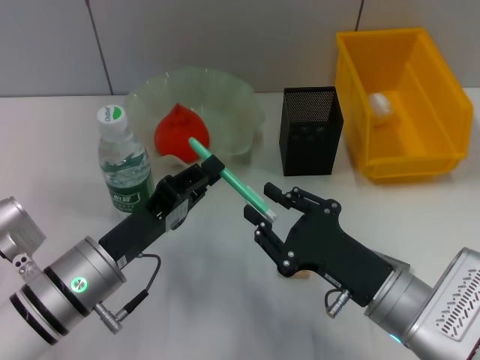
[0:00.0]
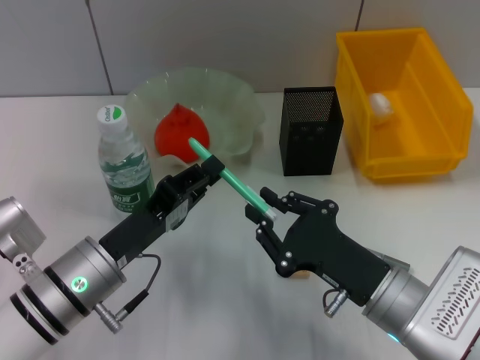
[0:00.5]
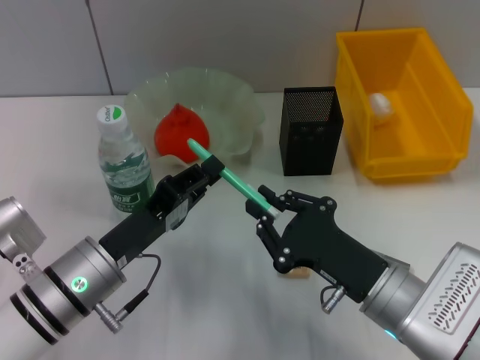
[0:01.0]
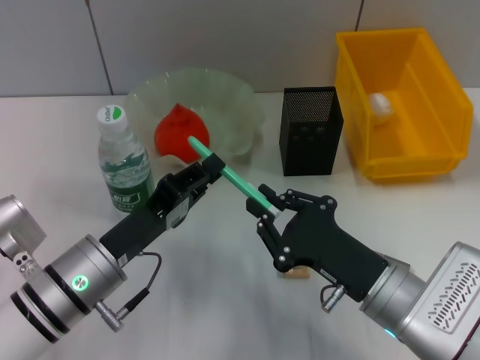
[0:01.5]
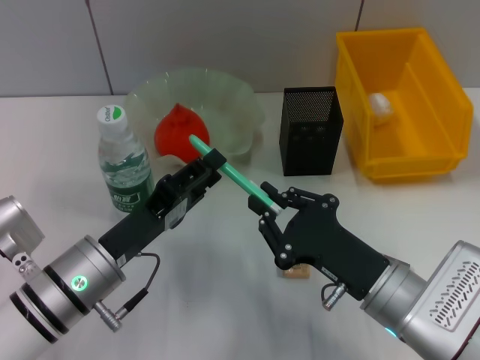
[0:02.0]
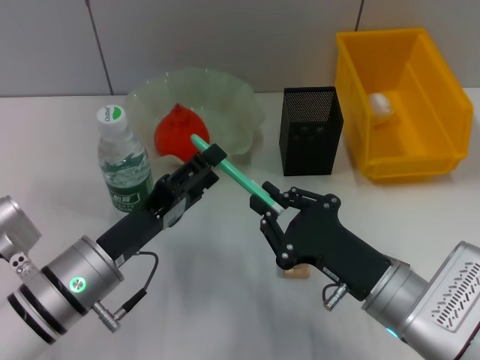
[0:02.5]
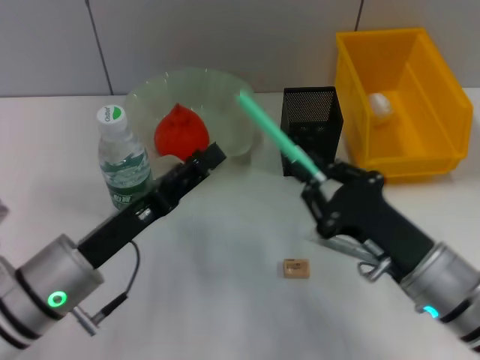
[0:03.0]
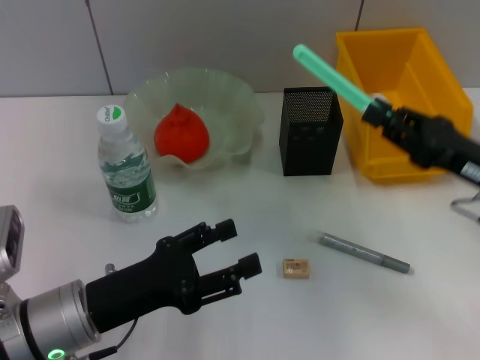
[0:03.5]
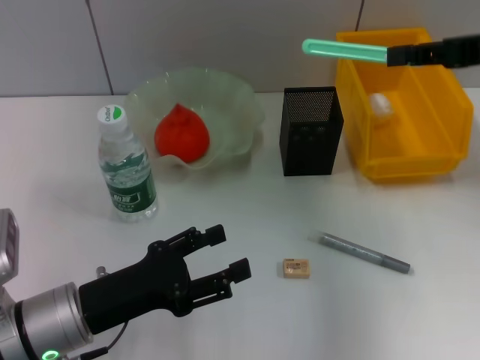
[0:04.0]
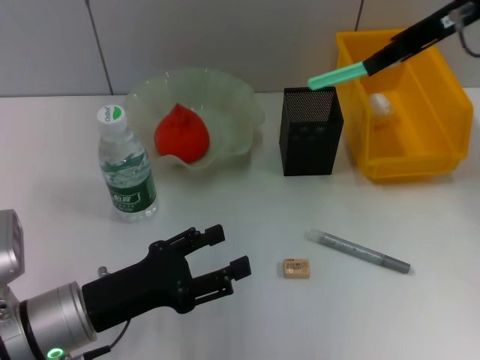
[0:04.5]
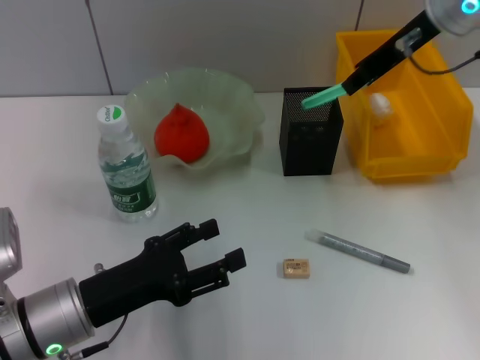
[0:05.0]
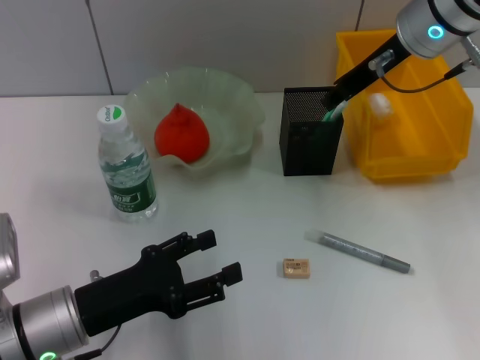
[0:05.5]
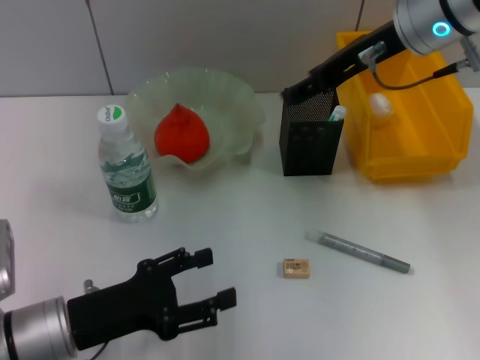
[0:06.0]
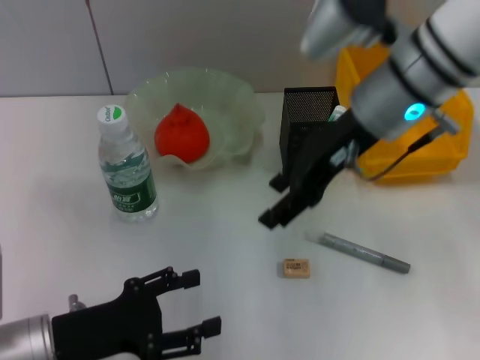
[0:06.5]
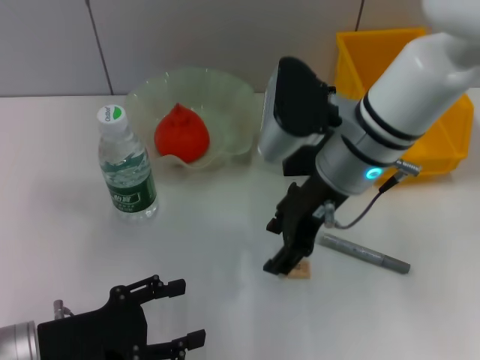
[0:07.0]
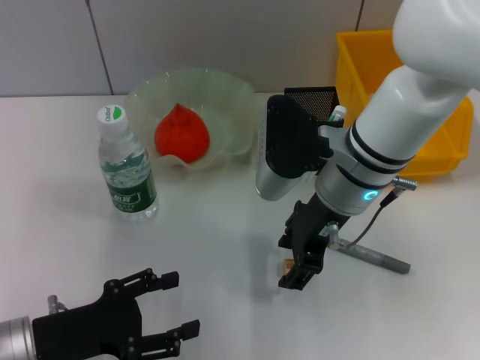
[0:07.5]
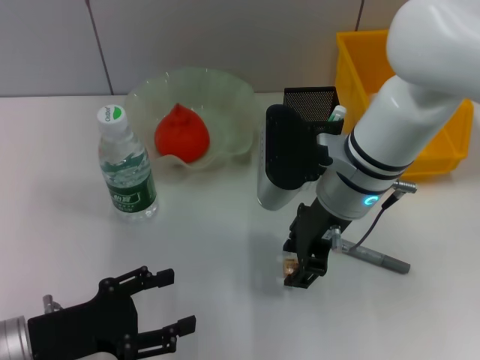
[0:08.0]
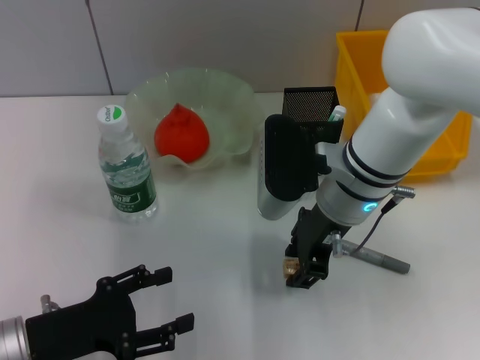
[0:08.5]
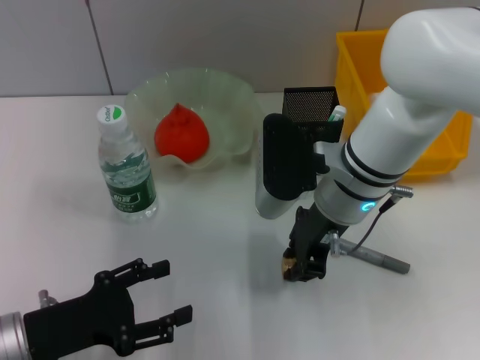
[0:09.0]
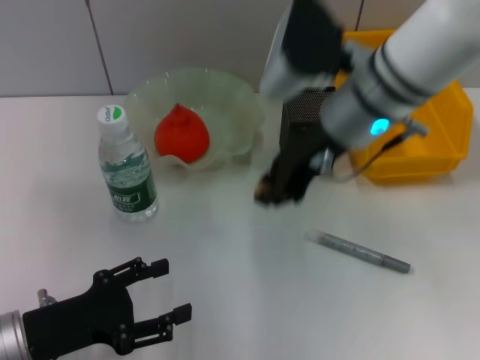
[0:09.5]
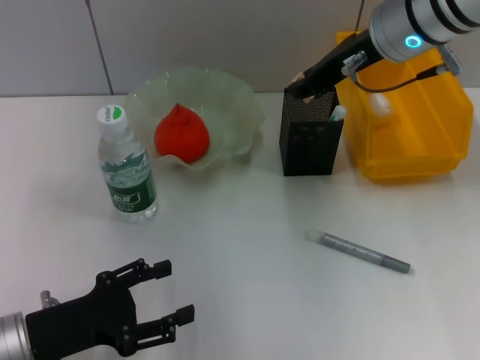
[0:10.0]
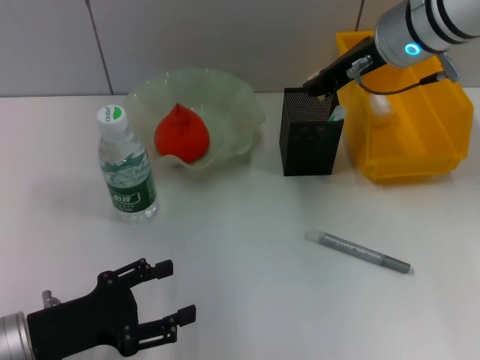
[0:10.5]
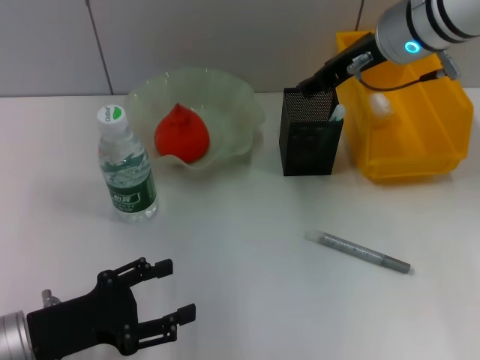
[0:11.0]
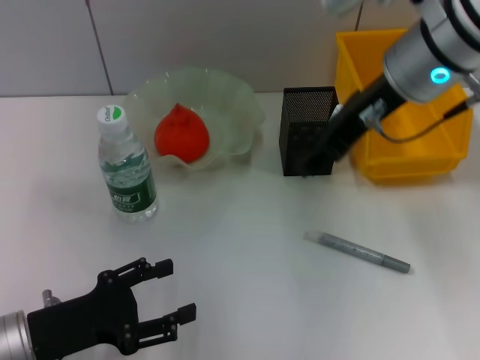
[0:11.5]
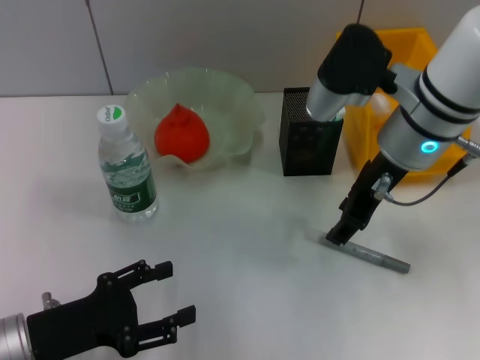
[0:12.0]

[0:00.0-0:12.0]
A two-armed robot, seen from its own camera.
Step, 0:00.0 to 0:02.5: Pass the blue utility knife from the left hand to the right hand.
Step, 0:03.0 to 0:06.0: Place the blue utility knife into the pen holder with the right hand.
Step, 0:06.5 to 0:08.5: Grab the eraser with the right hand.
Step, 0:09.0 to 0:10.5: Put the eraser into the pen holder with the right hand.
0:00.0 to 0:02.0: Neither gripper changes place.
0:02.0 to 0:04.0: The left gripper opens. Meanwhile the right gripper moves upward, forward and to the right, about 30 cm.
0:04.0 to 0:06.0: The right gripper moves to the left, some 15 cm, and opens up.
0:06.0 to 0:08.0: The right gripper travels downward, to the left and backward by approximately 15 cm.
0:08.0 to 0:10.0: The right gripper heads upward and forward, covering some 15 cm, and closes.
0:10.0 to 0:12.0: The right gripper heads downward, covering roughly 5 cm, and opens up.

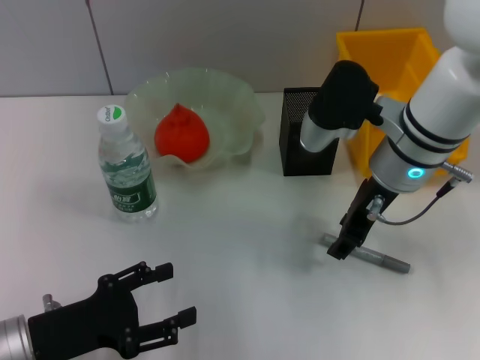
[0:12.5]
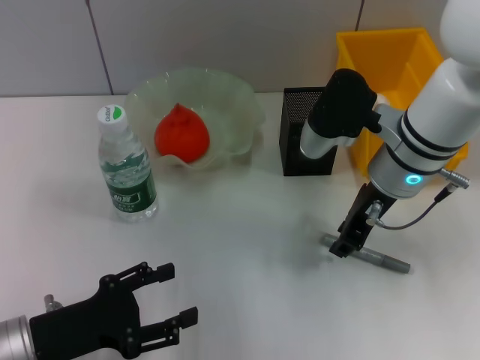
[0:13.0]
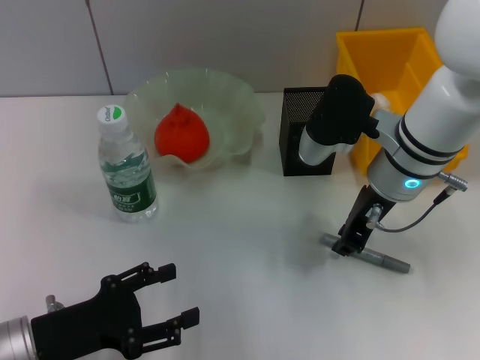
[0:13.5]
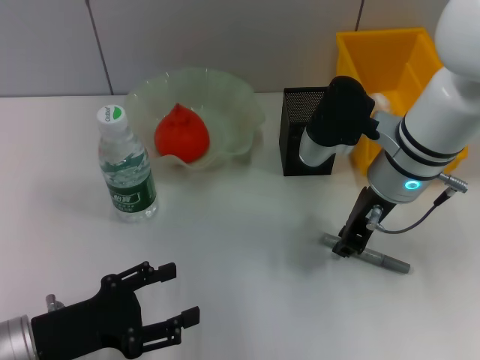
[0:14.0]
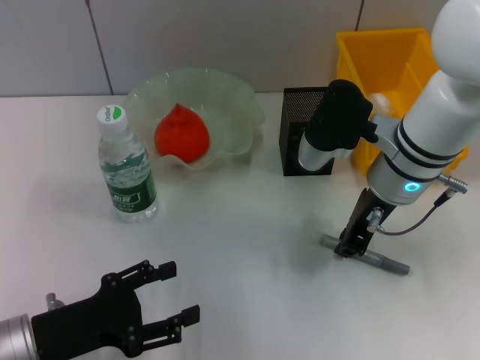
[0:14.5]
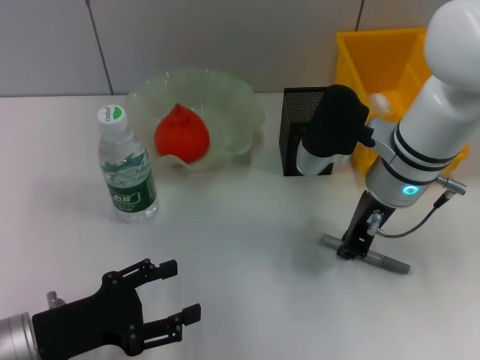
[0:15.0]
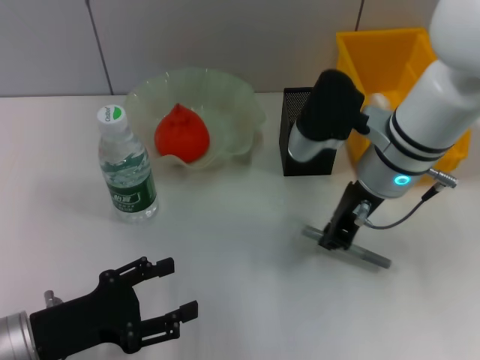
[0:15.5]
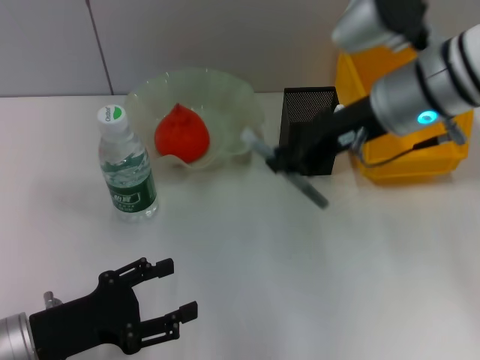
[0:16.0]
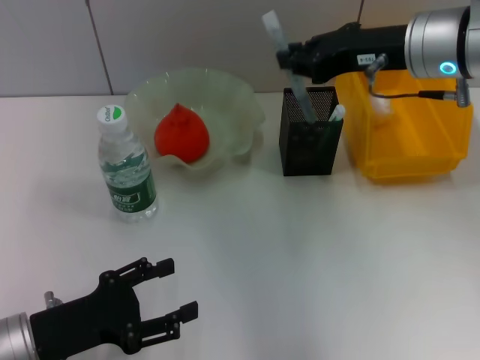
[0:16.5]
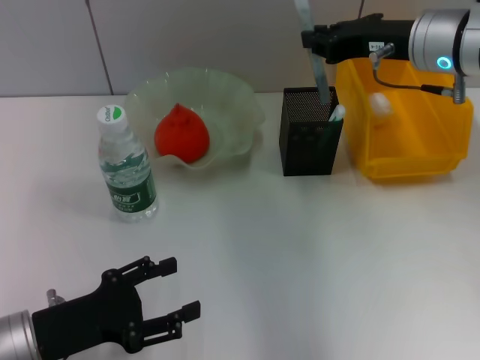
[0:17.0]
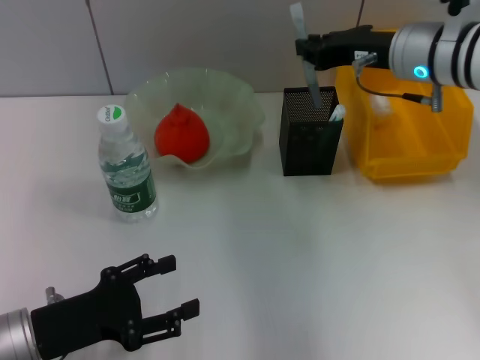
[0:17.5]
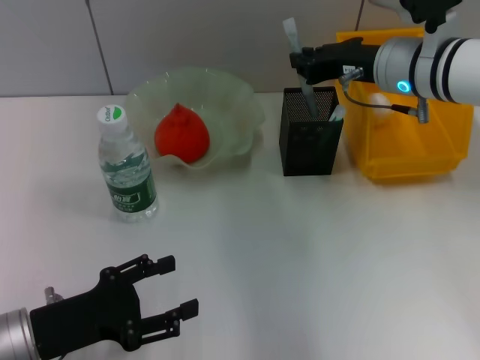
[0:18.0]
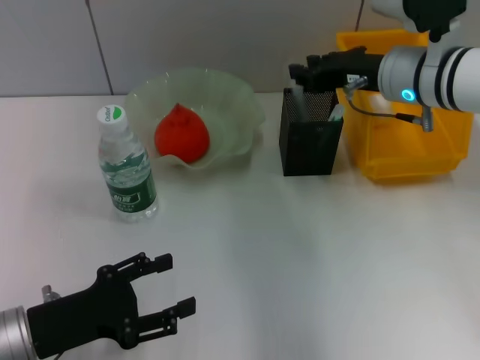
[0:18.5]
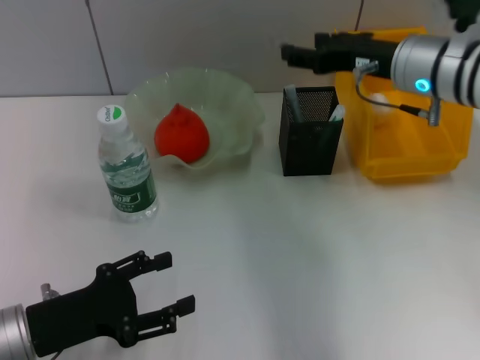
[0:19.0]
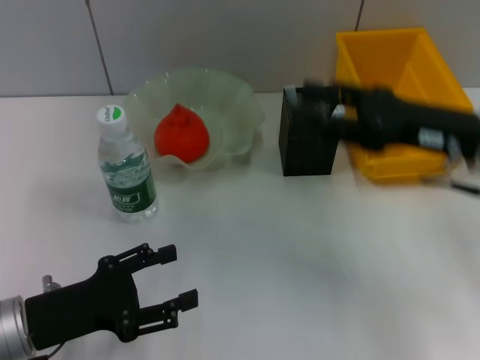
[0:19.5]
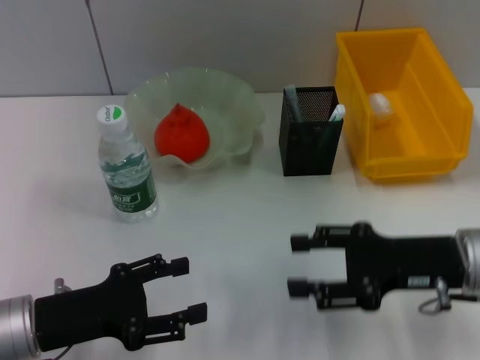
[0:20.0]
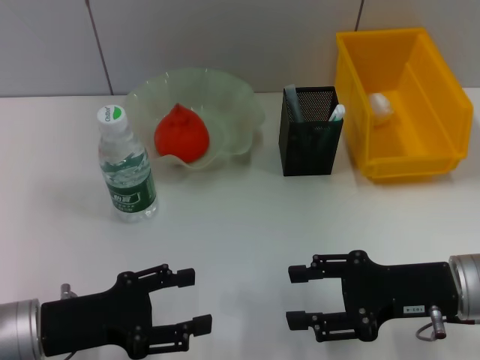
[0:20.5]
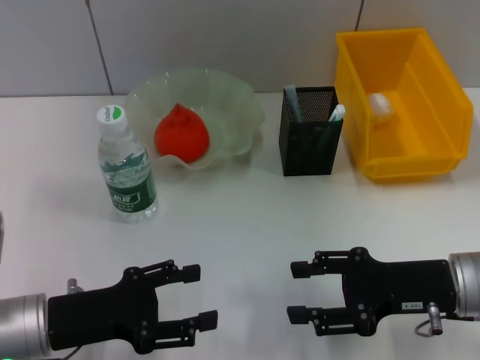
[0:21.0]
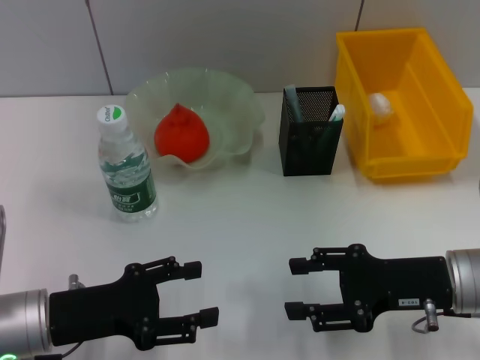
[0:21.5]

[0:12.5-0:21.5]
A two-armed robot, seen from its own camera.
Step, 0:12.5 to 0:15.0: Grab the gray glue with the right hand.
Step, 0:15.5 to 0:18.5: Place the gray glue into the pen holder with the right hand.
0:12.5 to 0:14.5: The right gripper closes its fingers.
0:14.5 to 0:17.0: The right gripper moves upward and to the right, about 10 cm.
0:17.0 to 0:19.5: The right gripper heads backward, covering some 10 cm, and opens up.
0:19.5 to 0:21.5: The right gripper travels downward and backward by about 10 cm.

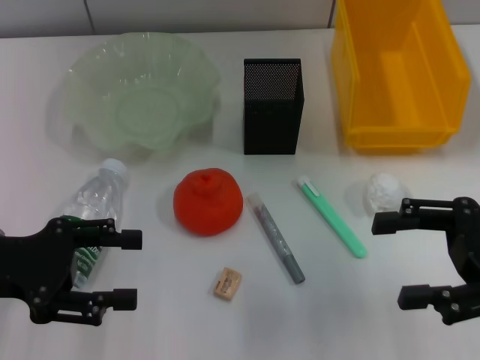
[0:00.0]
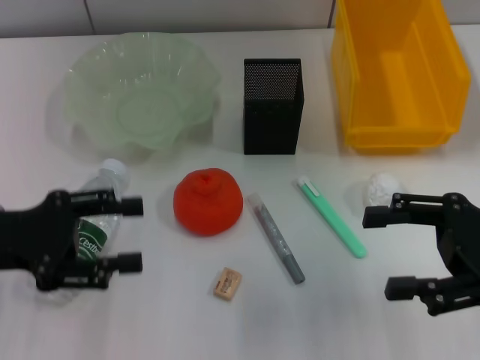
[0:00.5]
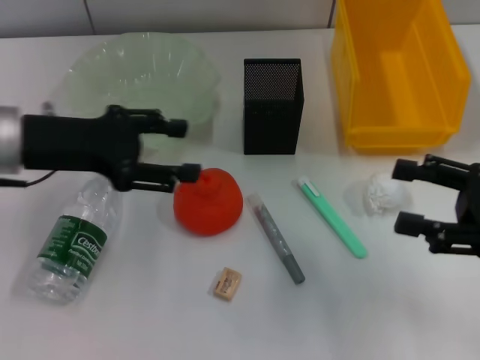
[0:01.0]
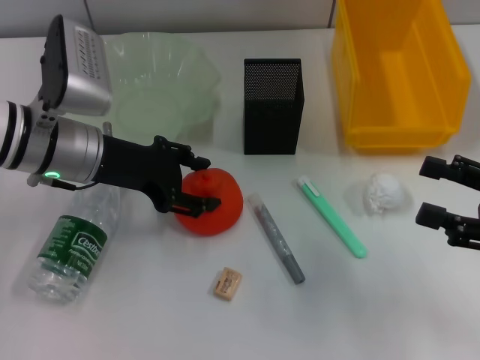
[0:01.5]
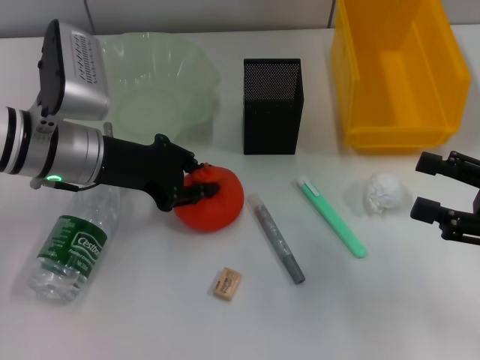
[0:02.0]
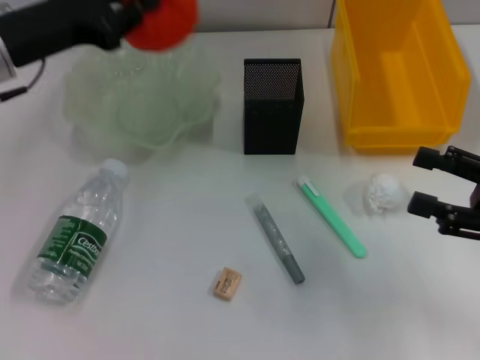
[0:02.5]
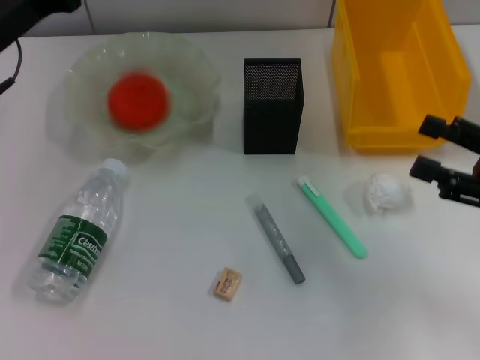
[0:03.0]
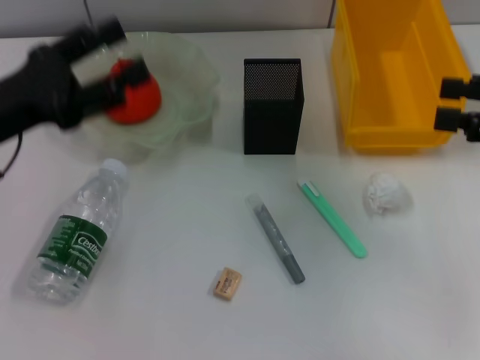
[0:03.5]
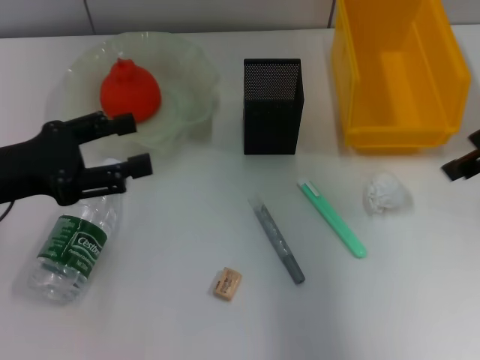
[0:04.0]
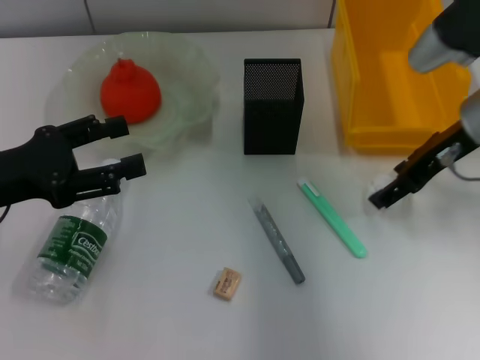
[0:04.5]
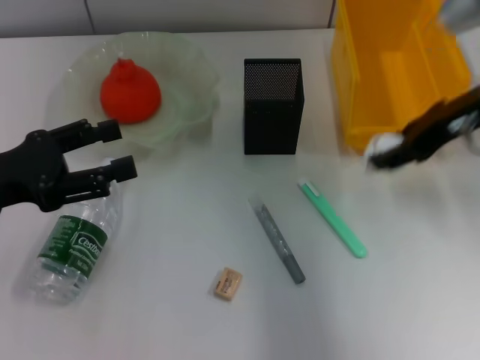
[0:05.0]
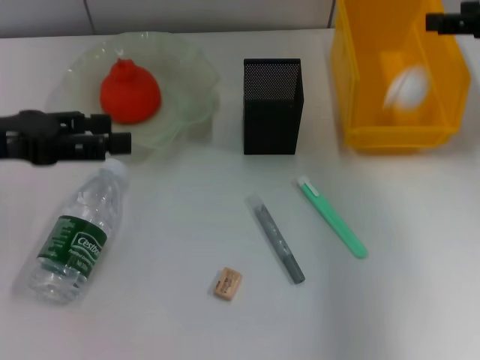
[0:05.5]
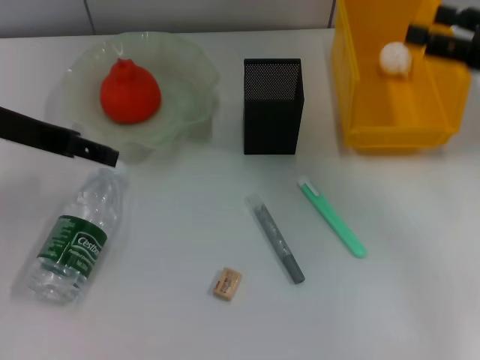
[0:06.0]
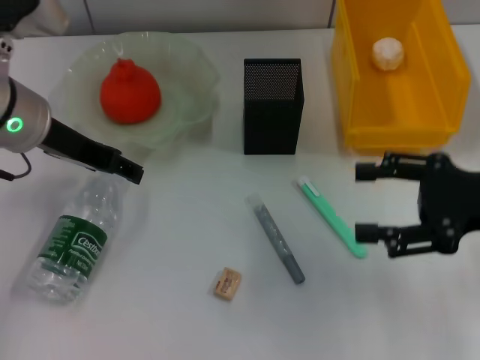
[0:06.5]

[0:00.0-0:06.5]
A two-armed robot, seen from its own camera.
Step, 0:00.0 to 0:01.5: Grab the orange with the left hand.
Step, 0:02.0 to 0:03.0: Place the orange into the fruit bowl with the left hand.
Step, 0:03.5 to 0:04.5: Grab the paper ball with the right hand.
Step, 0:05.0 to 0:05.5: Place the paper ball into the trash can with the right hand.
0:00.0 to 0:02.0: The left gripper travels forward and to the right by roughly 15 cm, and closes up.
0:02.0 to 0:04.5: The right gripper moves forward and to the left, roughly 20 cm; the left gripper travels to the left and backward by approximately 15 cm, and opens.
0:04.5 to 0:06.5: The right gripper moves backward and to the right, roughly 10 cm, while the left gripper moves to the right, forward and upward, about 15 cm.
